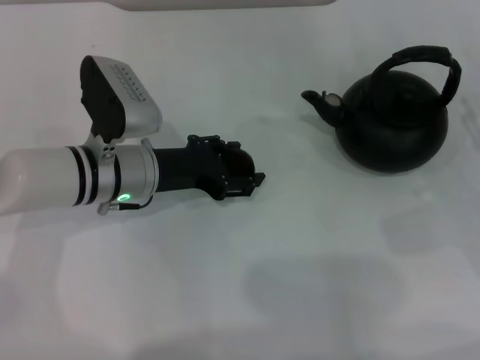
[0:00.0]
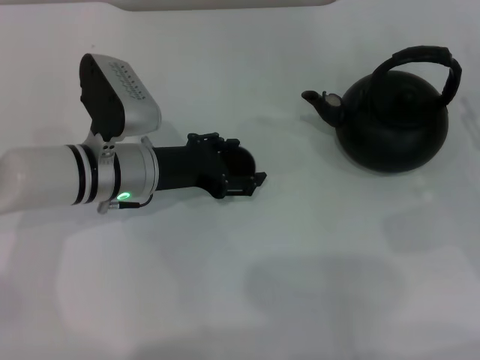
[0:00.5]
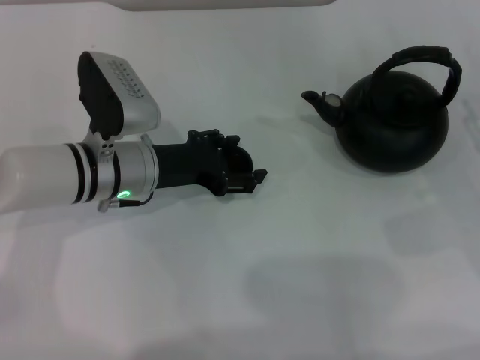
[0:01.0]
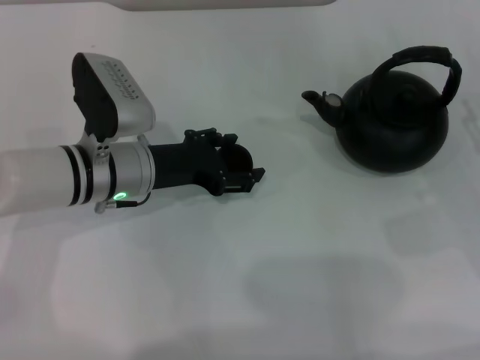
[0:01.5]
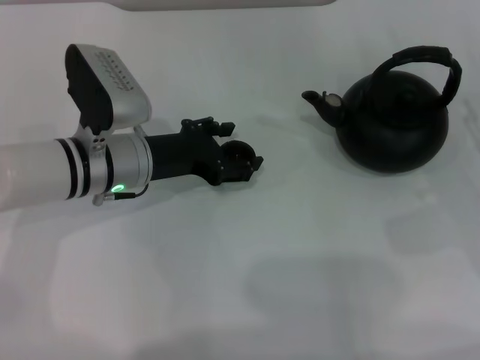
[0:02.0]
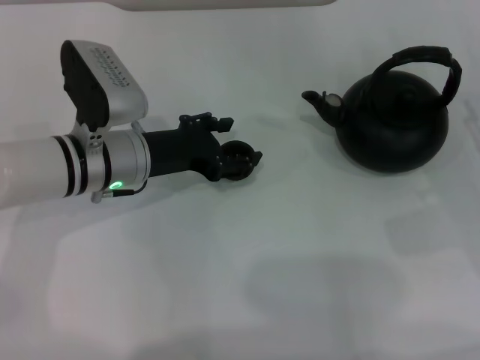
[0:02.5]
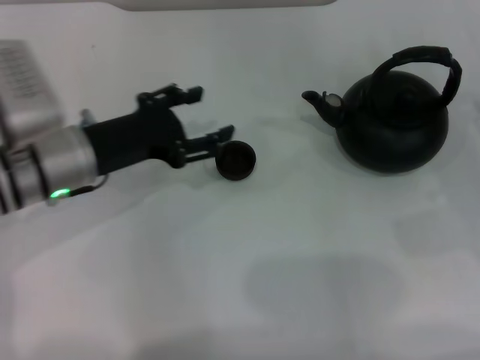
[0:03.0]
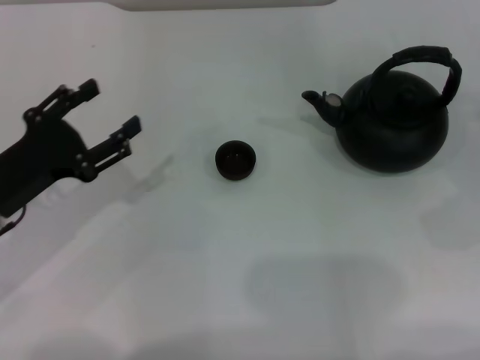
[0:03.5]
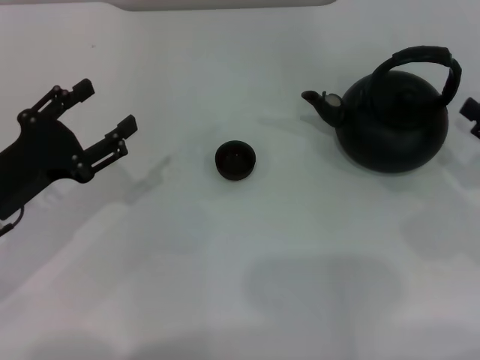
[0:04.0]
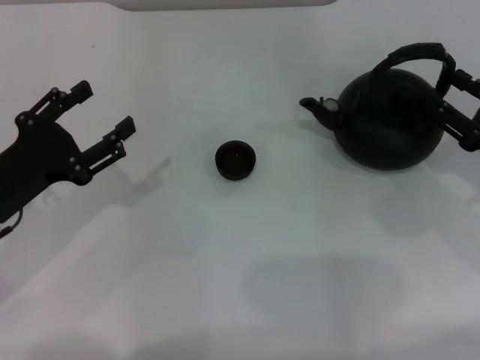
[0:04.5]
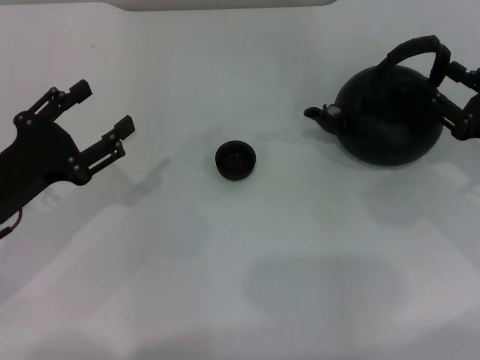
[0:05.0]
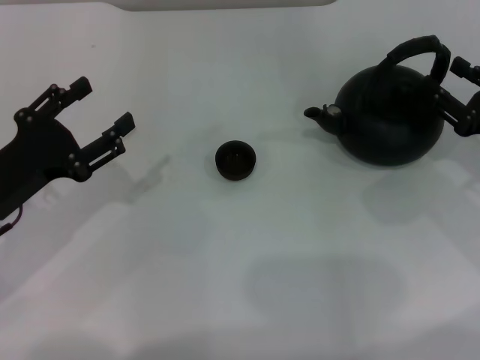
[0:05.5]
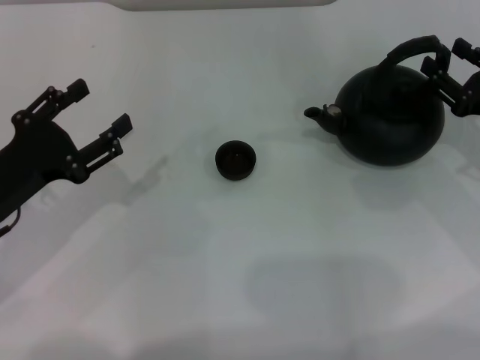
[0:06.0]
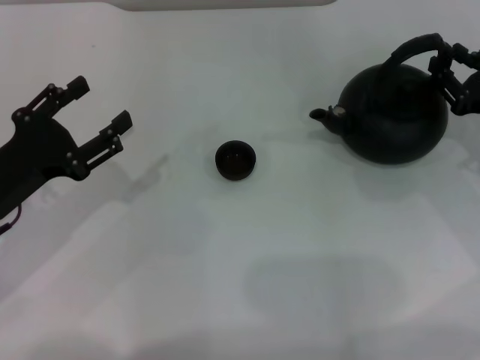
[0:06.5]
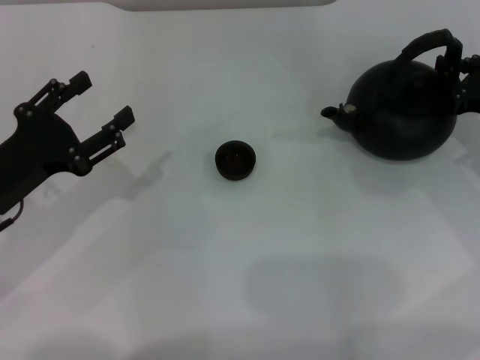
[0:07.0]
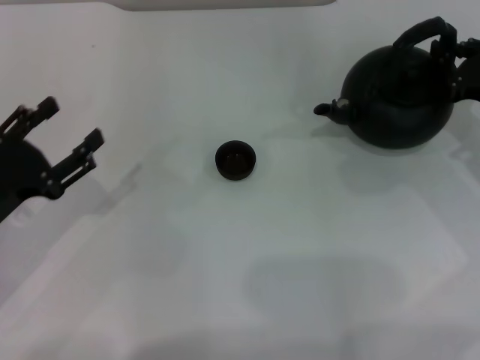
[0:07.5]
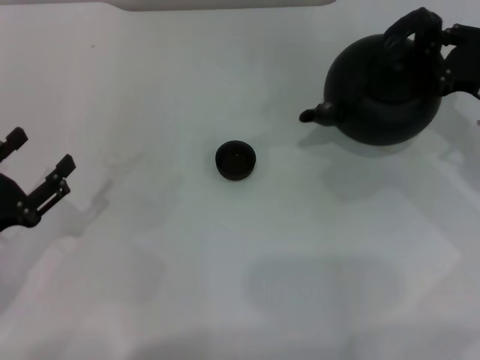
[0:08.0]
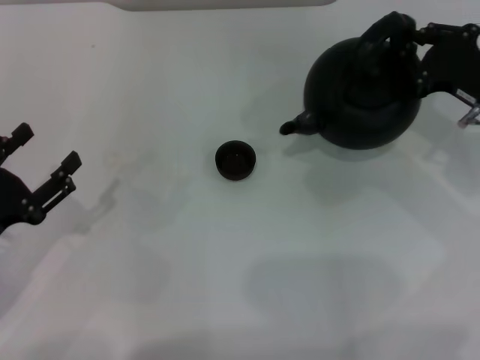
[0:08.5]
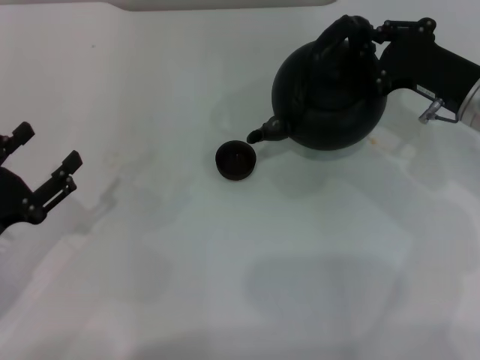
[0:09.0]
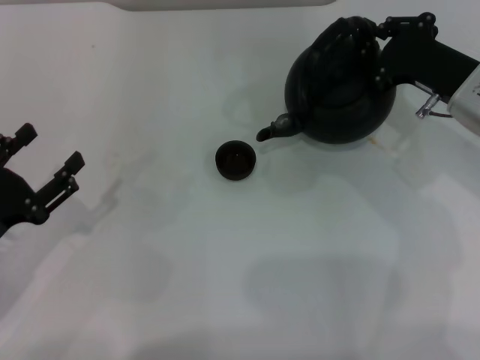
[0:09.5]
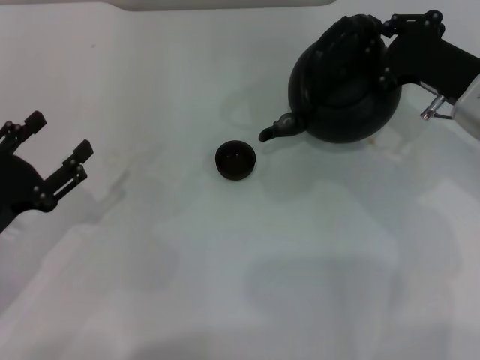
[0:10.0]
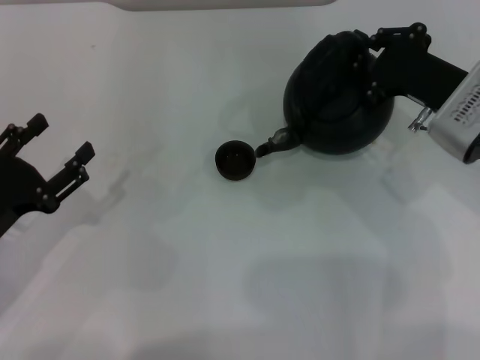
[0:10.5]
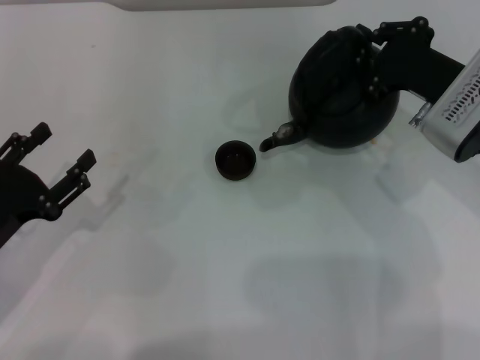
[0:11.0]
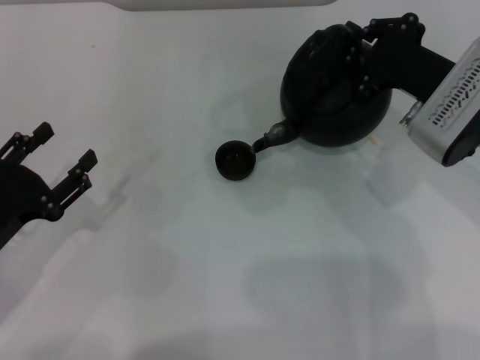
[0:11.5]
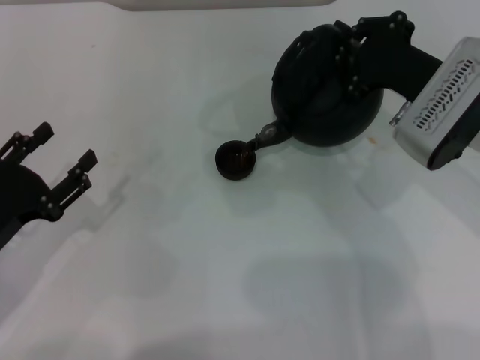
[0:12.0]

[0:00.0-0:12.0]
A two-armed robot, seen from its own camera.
Task of the whole recording: Grasp the handle of the teapot with one hand and pour tea into the teacup.
Step, 0:00.0 to 0:03.0: Place the teacup in the center of view with the left gripper.
Step, 0:03.5 to 0:07.5: Pick up the teapot with the right gripper.
0:00.0 to 0:02.0: The left gripper opens.
0:02.0 to 0:04.0: The left gripper heads to the left and backward, covering approximately 15 cm.
0:04.0 to 0:06.0: The right gripper moves forward, roughly 5 cm.
0:06.0 to 0:08.0: The right gripper closes up. Meanwhile the left gripper is displaced backward by some 5 cm.
0:08.0 to 0:10.0: The right gripper moves to the left, roughly 5 cm.
0:10.0 to 0:12.0: The grippers stay close to where they were, moving slightly.

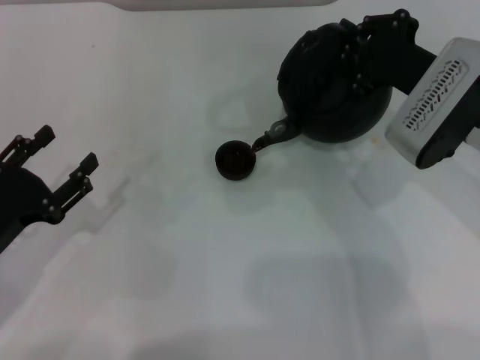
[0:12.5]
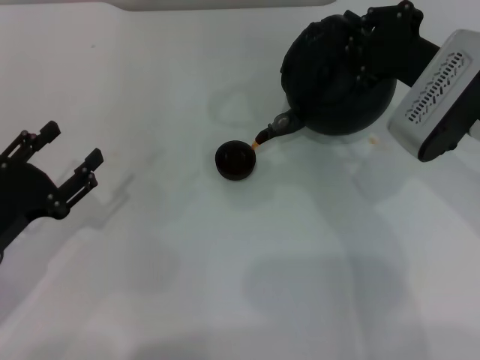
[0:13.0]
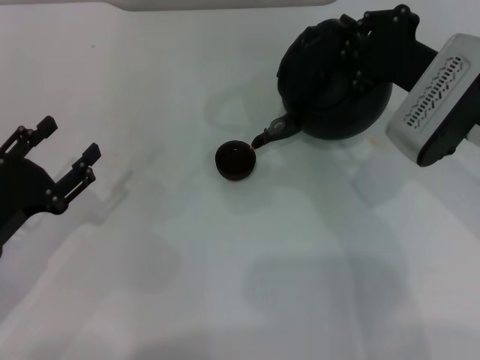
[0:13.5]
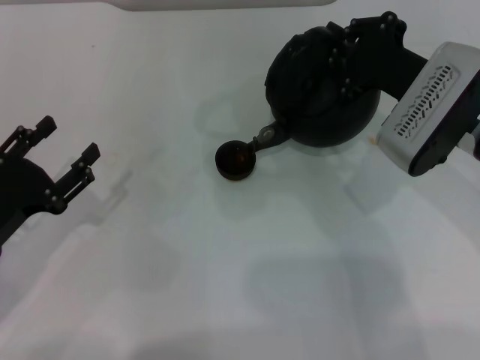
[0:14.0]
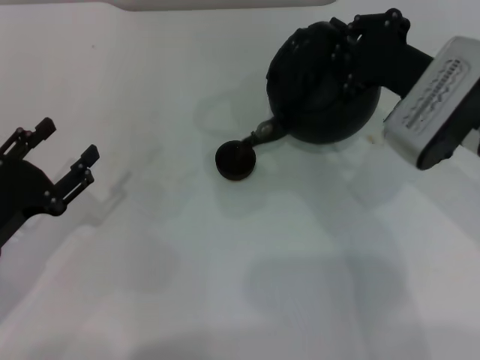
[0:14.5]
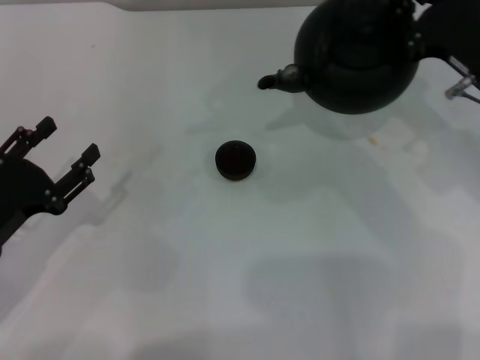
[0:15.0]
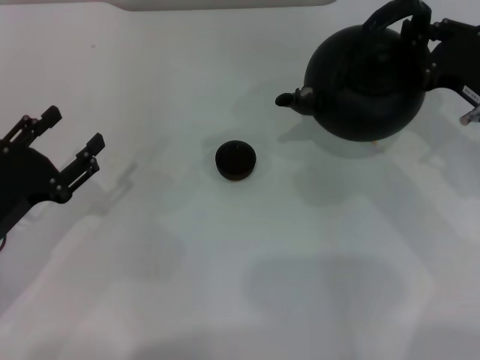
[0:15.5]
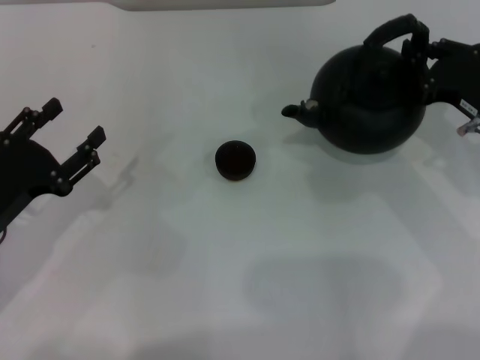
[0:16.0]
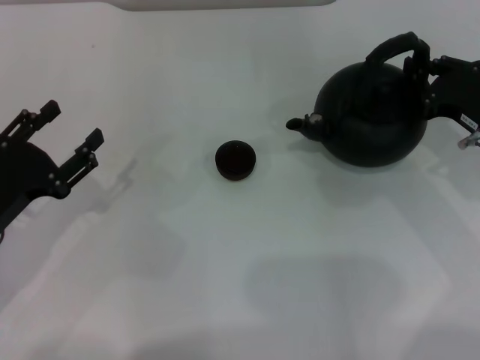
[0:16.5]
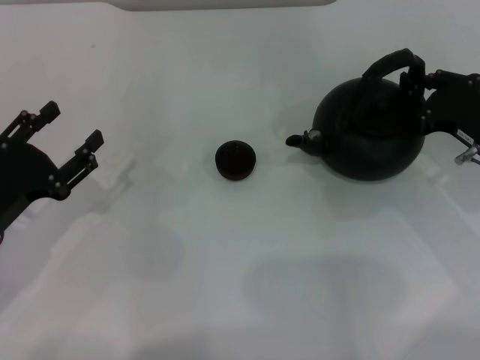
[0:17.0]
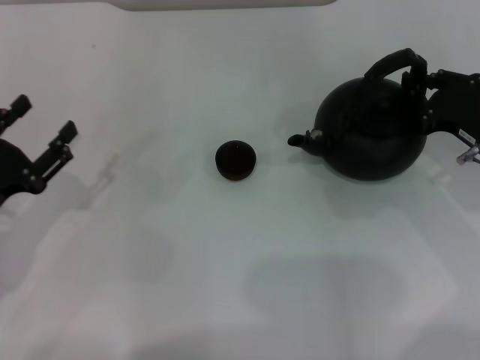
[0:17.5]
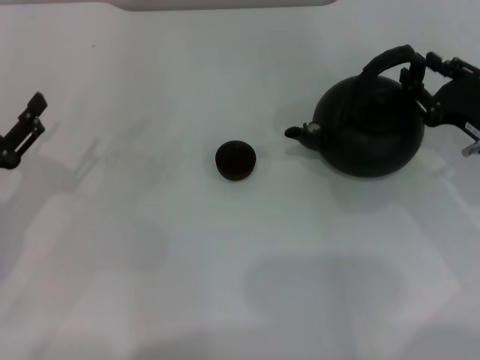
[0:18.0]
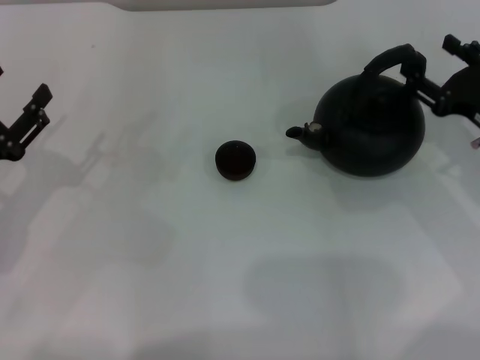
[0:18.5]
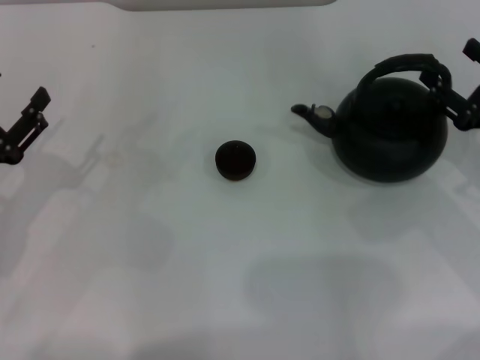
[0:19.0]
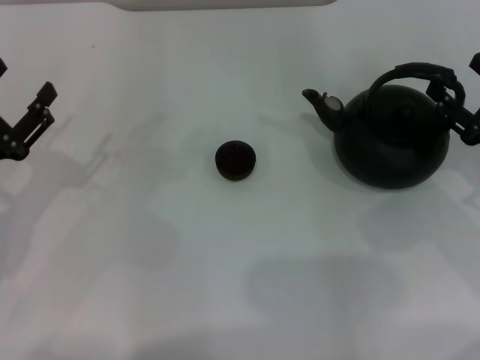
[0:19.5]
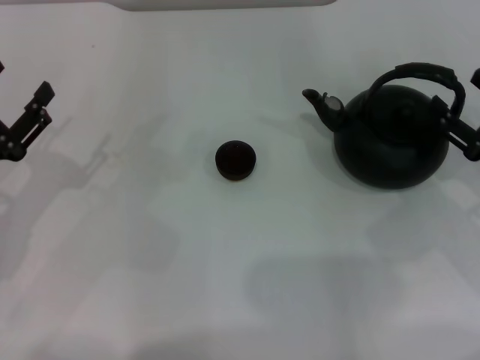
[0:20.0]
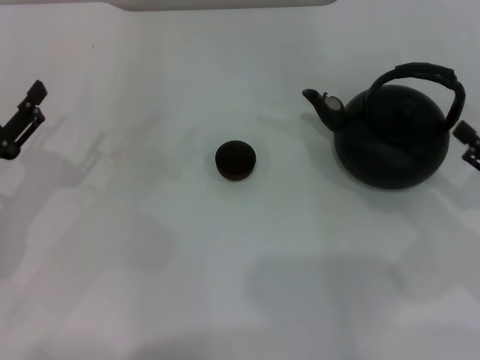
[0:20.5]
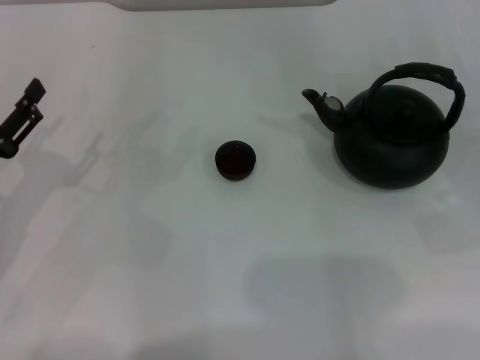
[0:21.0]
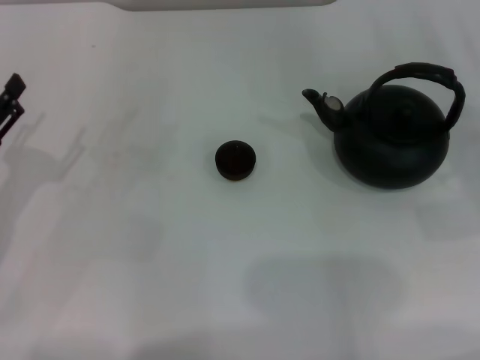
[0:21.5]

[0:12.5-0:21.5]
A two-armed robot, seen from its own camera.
Task of the whole recording: Grasp the handle of the teapot with one hand and pour tea into the teacup.
Step, 0:12.5 to 0:15.0: Pour tea into the teacup with the right gripper.
Step, 0:15.5 to 0:20.0: Put down the teapot with the right gripper.
0:12.5 to 0:14.5: Neither gripper changes place.
0:14.5 to 0:17.0: The right gripper moves to the right and downward, some 10 cm.
0:17.0 to 0:19.5: The right gripper moves some 5 cm, and opens up.
0:19.5 to 0:21.5: The right gripper is displaced to the right by about 5 cm.
